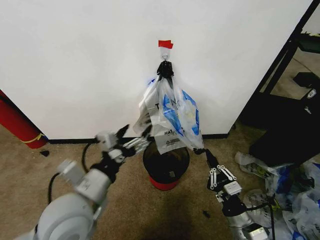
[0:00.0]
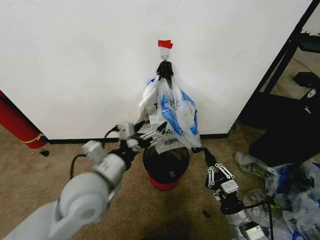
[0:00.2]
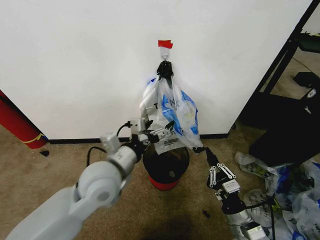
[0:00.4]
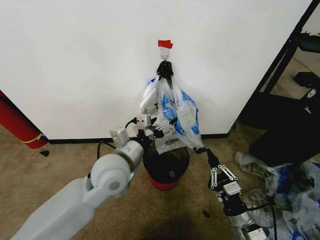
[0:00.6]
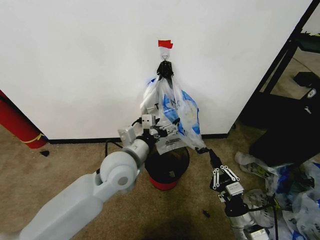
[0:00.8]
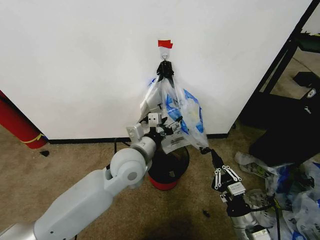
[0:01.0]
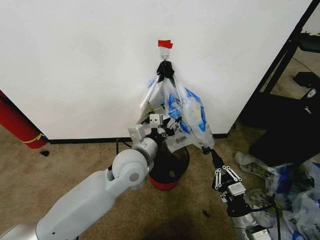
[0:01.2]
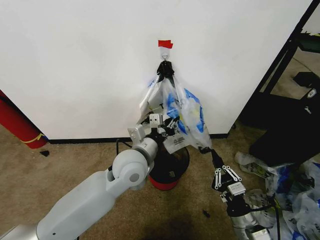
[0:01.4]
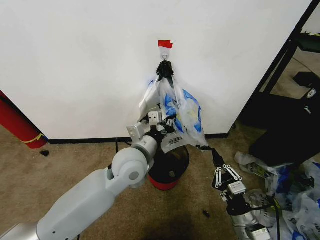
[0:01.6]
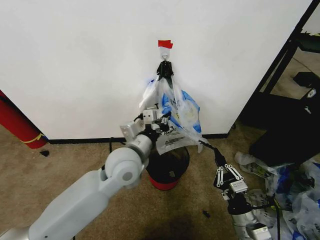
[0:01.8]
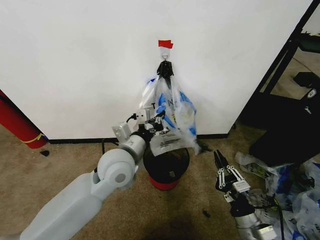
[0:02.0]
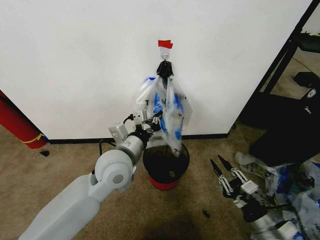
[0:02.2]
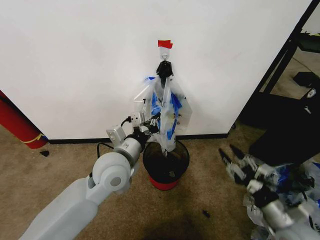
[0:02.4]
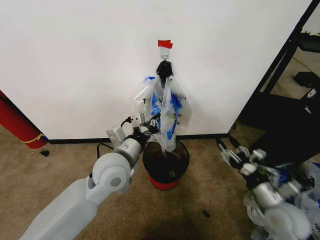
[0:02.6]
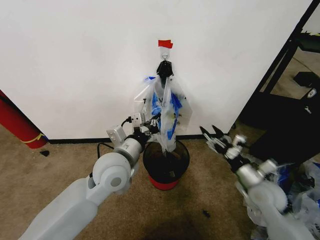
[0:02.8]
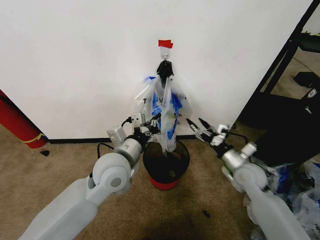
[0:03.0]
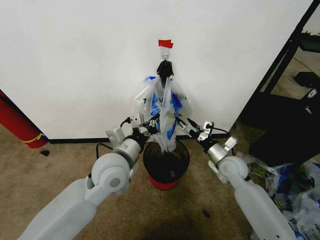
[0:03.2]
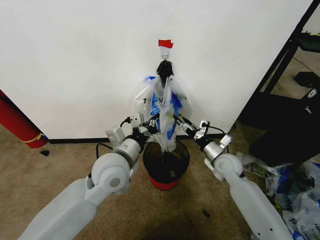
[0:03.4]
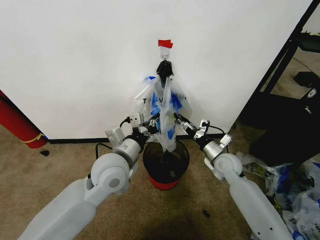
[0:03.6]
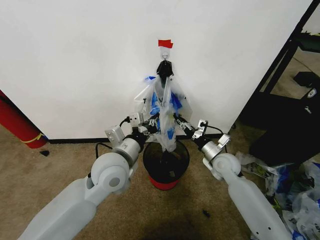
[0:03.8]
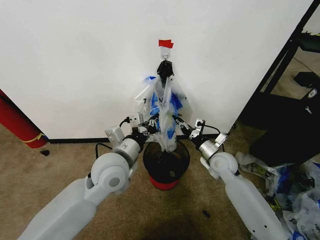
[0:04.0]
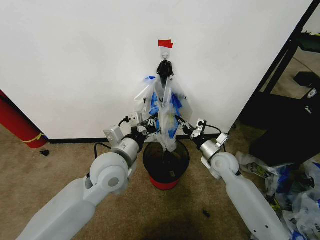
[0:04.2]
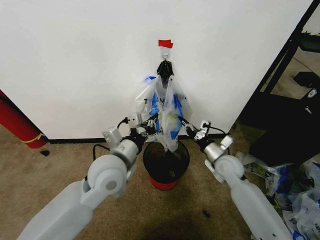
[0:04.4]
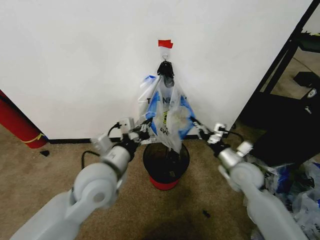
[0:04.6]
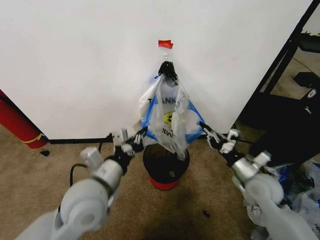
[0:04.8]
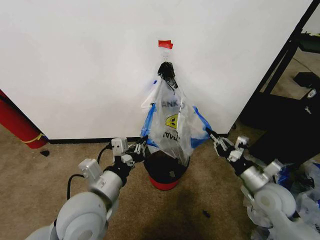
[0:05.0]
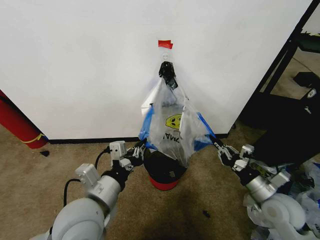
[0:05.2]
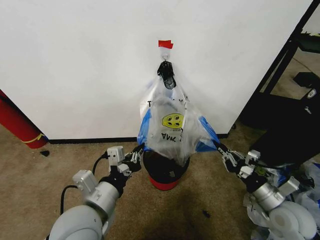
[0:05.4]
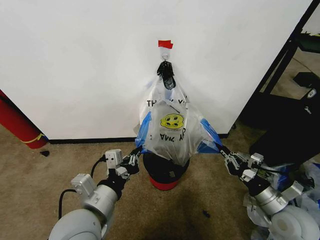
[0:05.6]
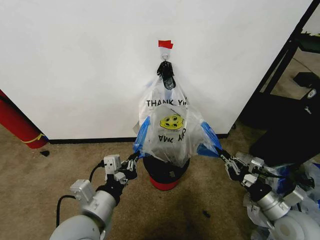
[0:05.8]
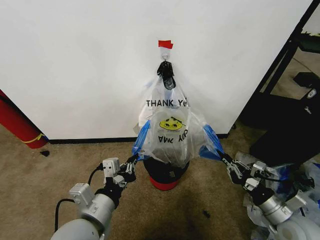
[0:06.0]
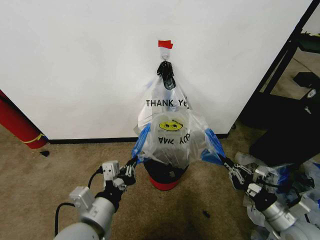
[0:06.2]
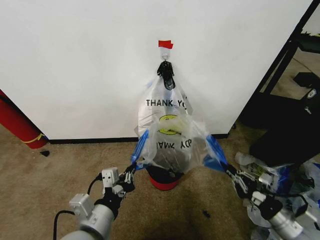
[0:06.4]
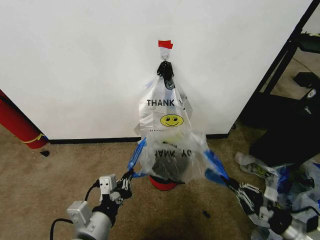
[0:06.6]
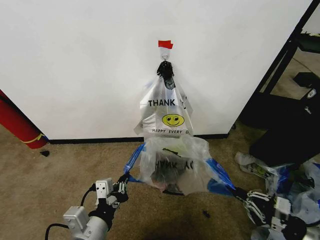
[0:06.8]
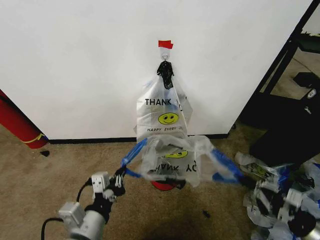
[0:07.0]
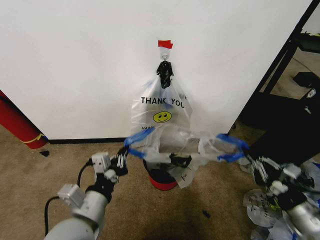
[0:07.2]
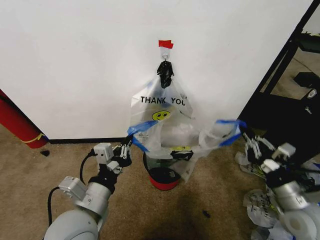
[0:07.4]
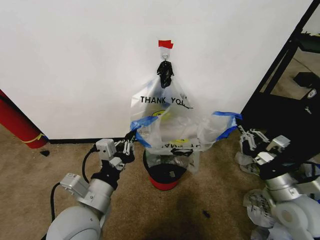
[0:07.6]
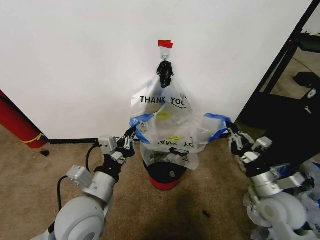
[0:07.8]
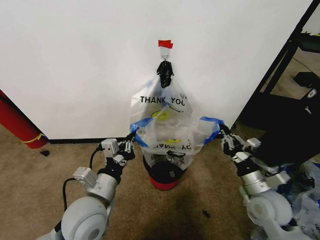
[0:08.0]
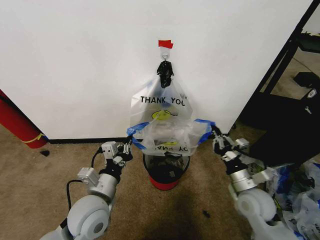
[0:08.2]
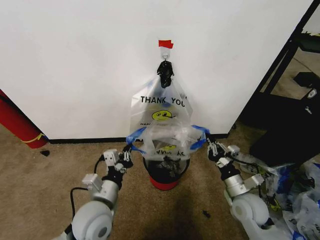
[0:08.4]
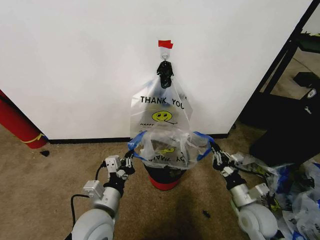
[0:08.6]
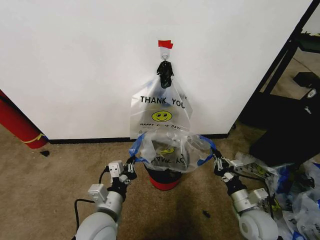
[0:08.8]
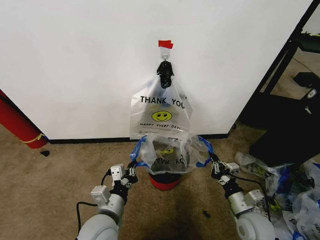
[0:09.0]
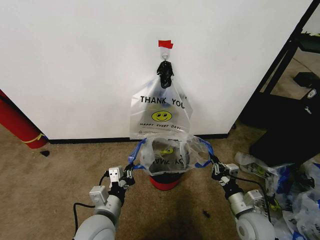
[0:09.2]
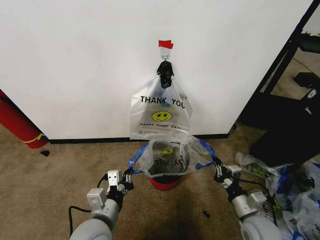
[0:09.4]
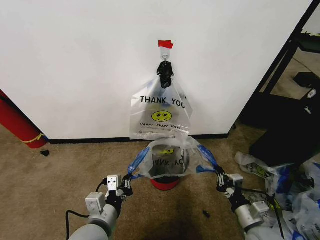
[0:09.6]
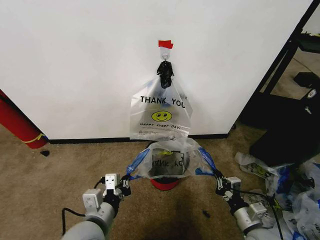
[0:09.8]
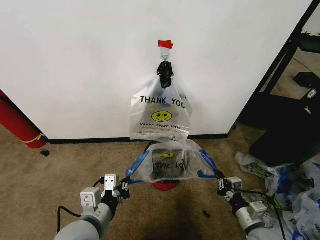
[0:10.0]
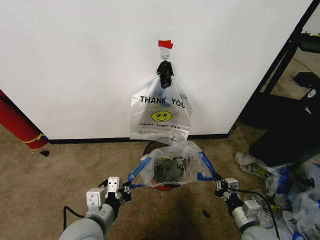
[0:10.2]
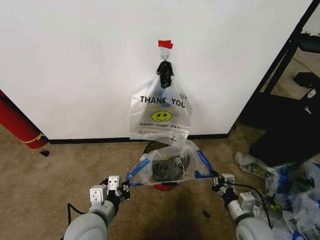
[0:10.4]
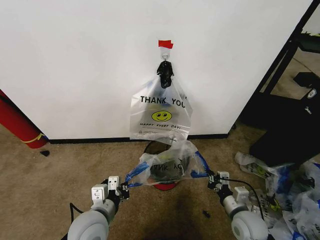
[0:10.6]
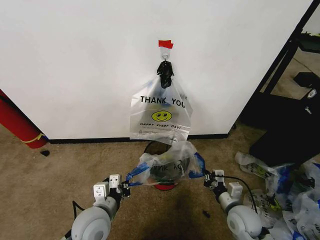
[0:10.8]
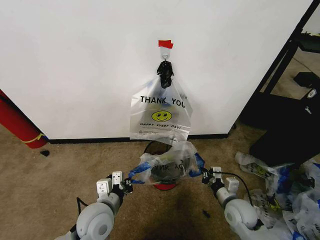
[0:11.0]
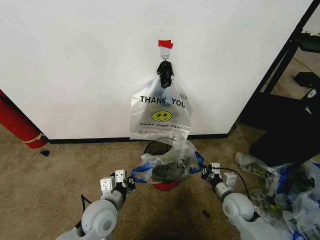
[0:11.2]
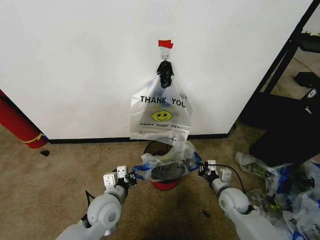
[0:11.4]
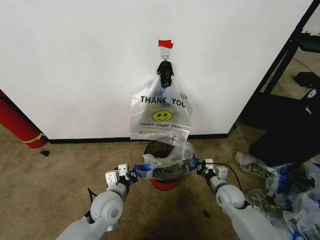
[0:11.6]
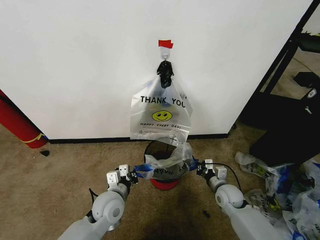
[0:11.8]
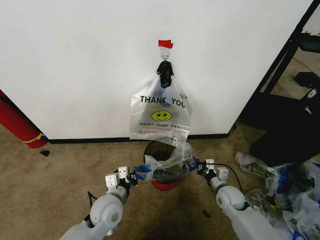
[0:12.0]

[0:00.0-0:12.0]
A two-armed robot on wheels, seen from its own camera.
Task of the whole recording: Pick up the garbage bag from the wall and place it over the trash bin.
0:00.0 to 0:01.6: The left gripper travels forward and to the right by some 20 cm, and closes up.
0:01.6 to 0:03.0: The right gripper travels forward by roughly 20 cm, and opens up.
0:03.0 to 0:04.4: The right gripper shifts by some 5 cm, and closes.
0:04.4 to 0:06.0: The right gripper travels backward and to the right by about 25 cm; the left gripper travels backward by about 15 cm.
0:06.0 to 0:07.6: The right gripper travels upward by roughly 5 cm, and moves about 5 cm to the right and comes back.
0:07.6 to 0:09.0: The right gripper heads downward and to the left, covering roughly 15 cm, while the left gripper is displaced downward by approximately 10 cm.
0:10.4 to 0:12.0: The right gripper heads forward, covering about 10 cm; the left gripper heads forward and downward, covering approximately 10 cm.

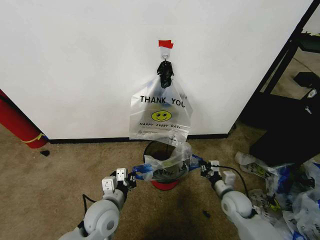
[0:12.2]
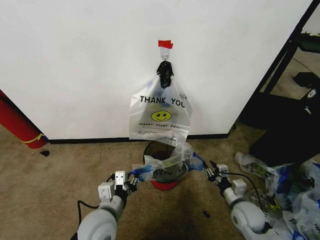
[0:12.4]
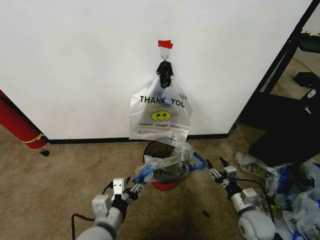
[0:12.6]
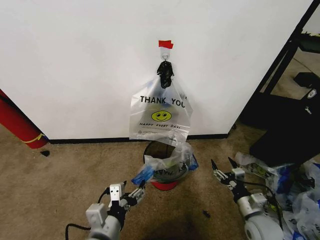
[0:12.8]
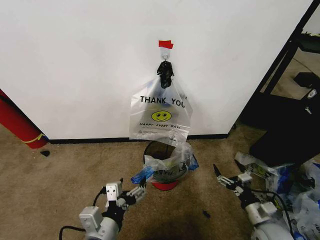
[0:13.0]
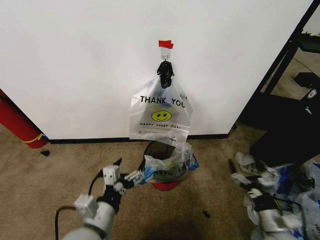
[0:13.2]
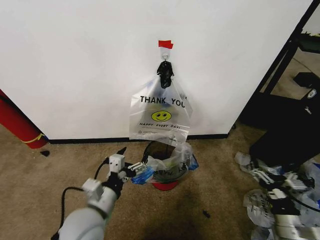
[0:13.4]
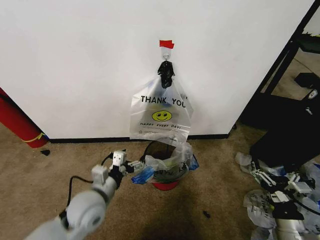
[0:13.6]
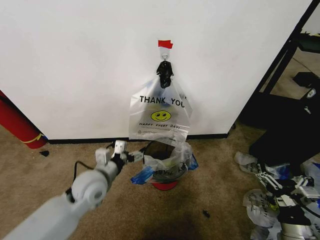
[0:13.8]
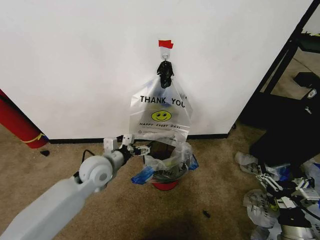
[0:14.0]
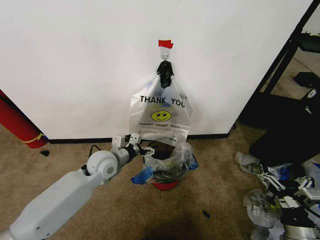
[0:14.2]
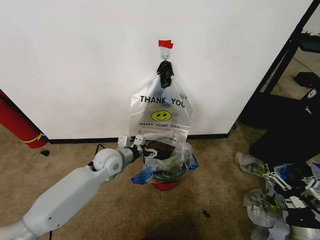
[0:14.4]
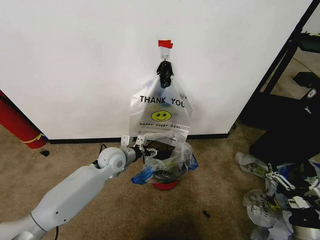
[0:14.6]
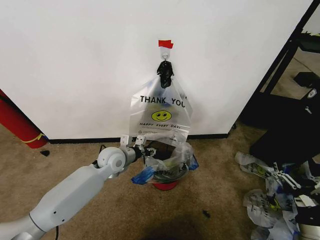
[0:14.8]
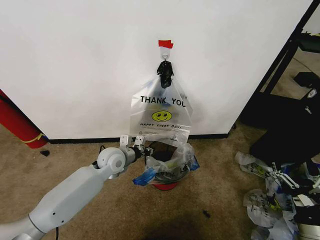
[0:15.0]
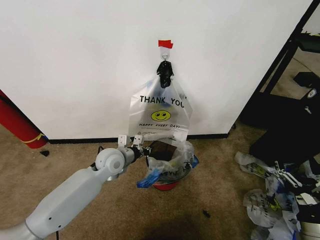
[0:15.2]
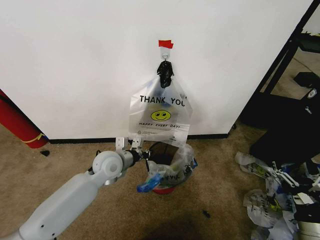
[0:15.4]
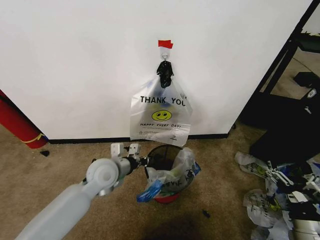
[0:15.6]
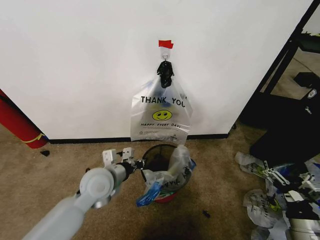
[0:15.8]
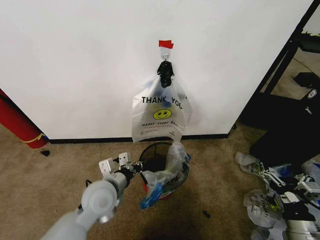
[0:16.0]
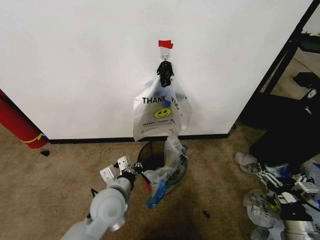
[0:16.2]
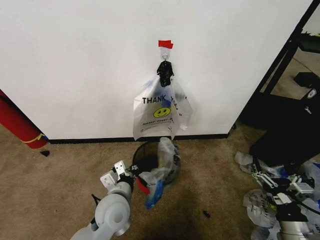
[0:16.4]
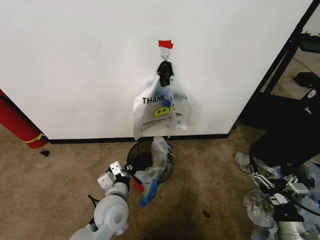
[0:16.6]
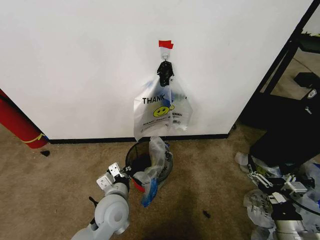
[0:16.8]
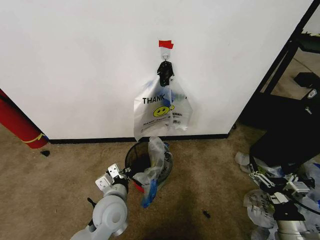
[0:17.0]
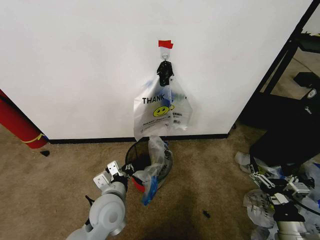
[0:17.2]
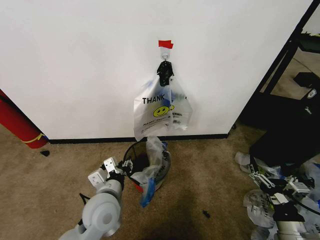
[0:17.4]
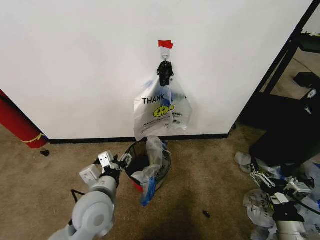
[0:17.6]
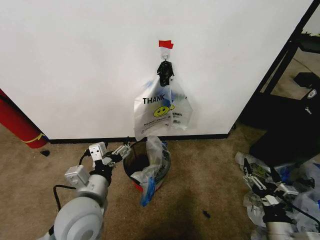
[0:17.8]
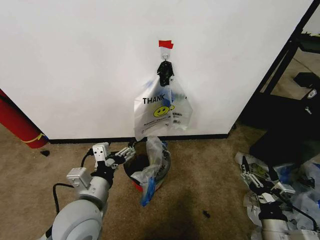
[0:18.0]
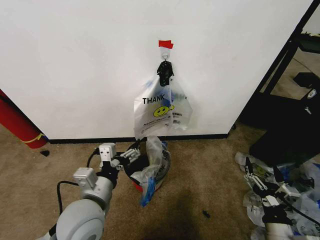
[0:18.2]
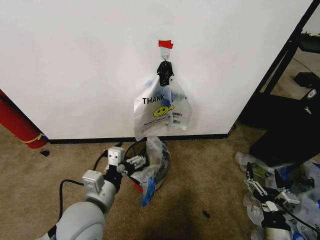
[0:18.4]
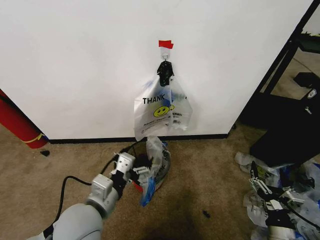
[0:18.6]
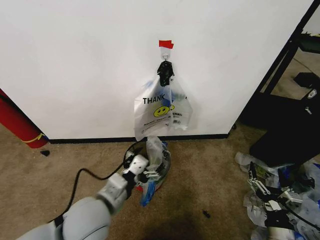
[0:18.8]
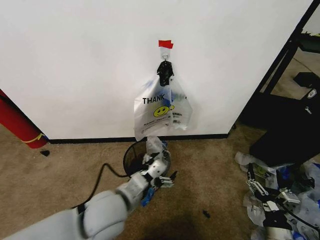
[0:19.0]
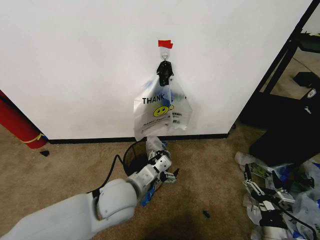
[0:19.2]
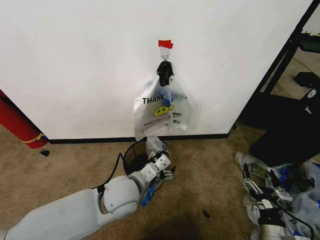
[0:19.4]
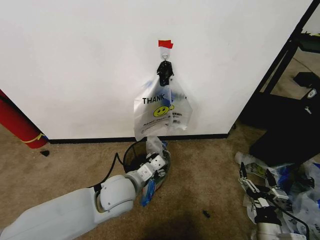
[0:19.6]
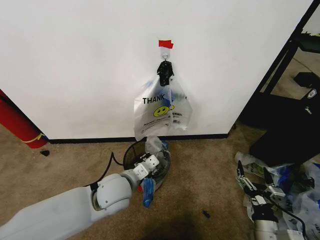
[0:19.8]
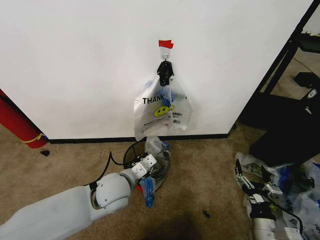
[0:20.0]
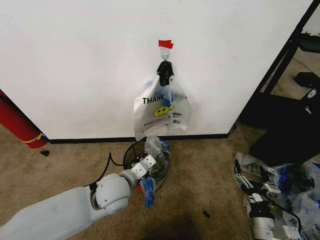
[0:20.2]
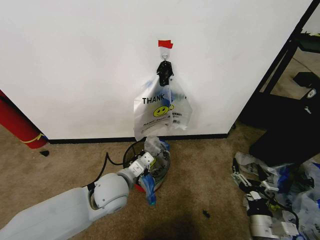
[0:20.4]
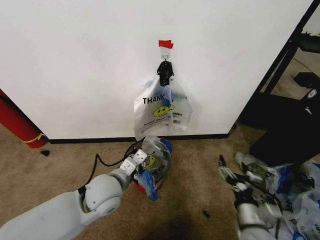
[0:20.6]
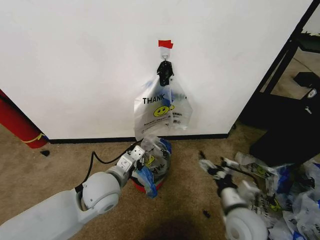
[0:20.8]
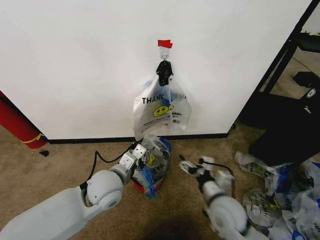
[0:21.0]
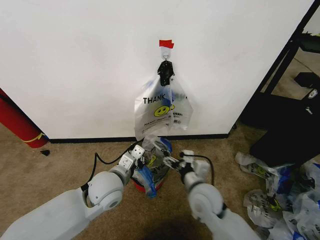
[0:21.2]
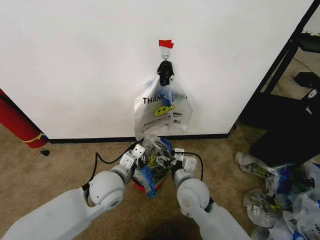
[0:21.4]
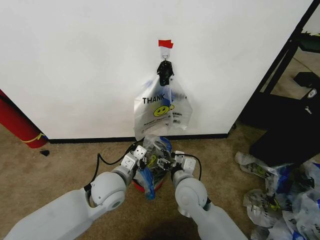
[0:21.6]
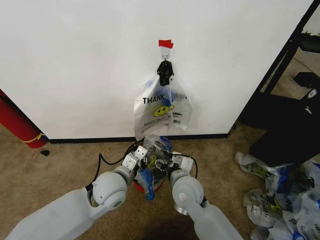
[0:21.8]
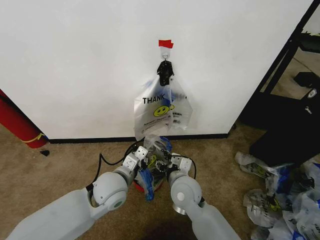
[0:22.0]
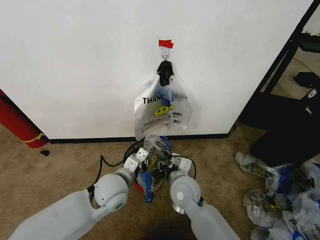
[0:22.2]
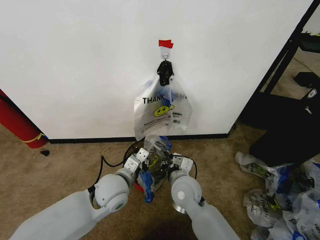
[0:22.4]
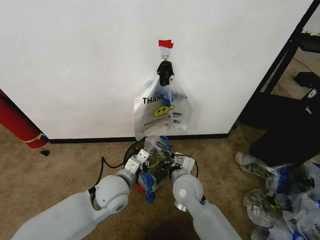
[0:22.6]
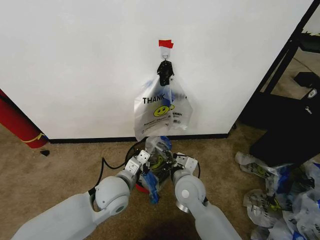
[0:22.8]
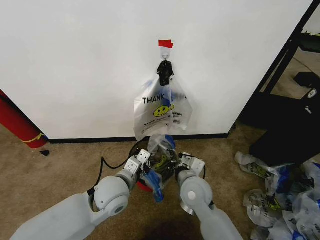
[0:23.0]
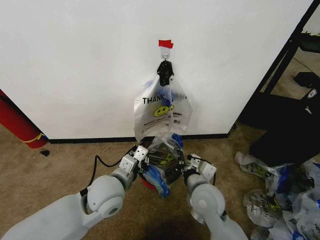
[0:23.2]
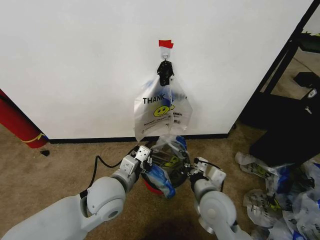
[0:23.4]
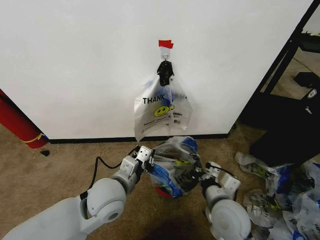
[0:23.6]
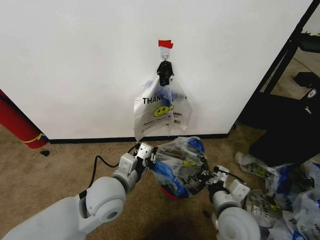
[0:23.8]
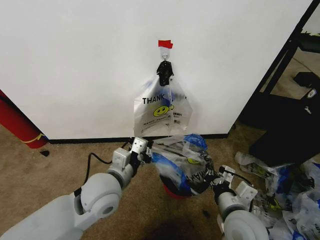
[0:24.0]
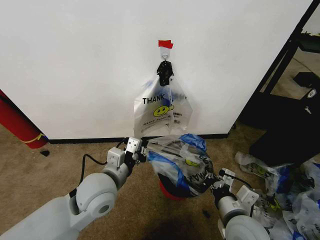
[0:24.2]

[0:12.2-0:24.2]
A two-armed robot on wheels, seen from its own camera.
Task of the whole recording: Pick up the garbage bag from the wall and place it over the trash bin.
0:12.2 to 0:13.8: The right gripper shifts approximately 20 cm backward and upward, and opens its fingers; the left gripper travels forward and upward by some 10 cm, and opens up.
0:13.8 to 0:15.2: The left gripper moves forward, roughly 10 cm, and closes up.
0:15.2 to 0:16.6: The left gripper goes approximately 15 cm backward.
0:16.6 to 0:18.2: The left gripper travels upward by roughly 10 cm, and opens up.
0:18.2 to 0:19.8: The left gripper heads forward, covering some 10 cm, and closes its fingers.
0:19.8 to 0:21.2: The left gripper closes its fingers; the right gripper moves to the left, forward and upward, some 25 cm.
0:21.2 to 0:22.6: The right gripper shifts by some 5 cm, and closes.
0:22.6 to 0:24.2: The right gripper moves backward and to the right, some 20 cm, while the left gripper goes approximately 5 cm upward.